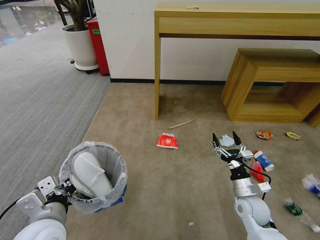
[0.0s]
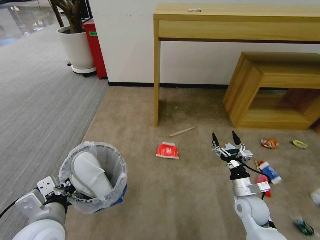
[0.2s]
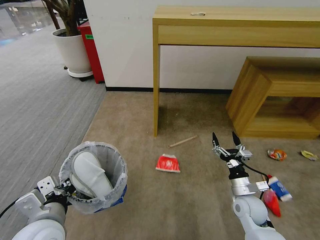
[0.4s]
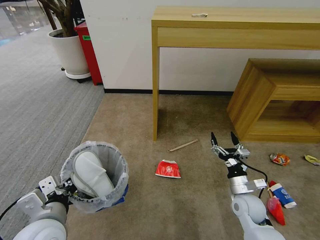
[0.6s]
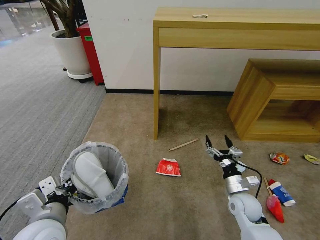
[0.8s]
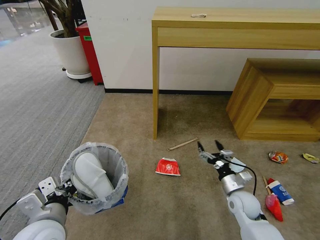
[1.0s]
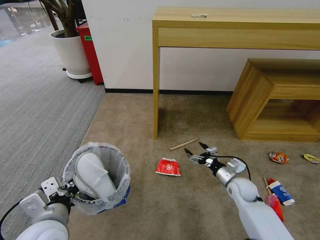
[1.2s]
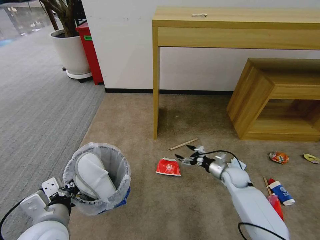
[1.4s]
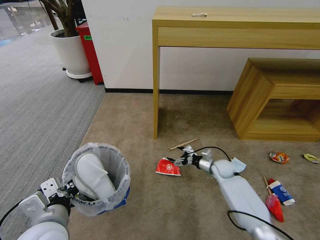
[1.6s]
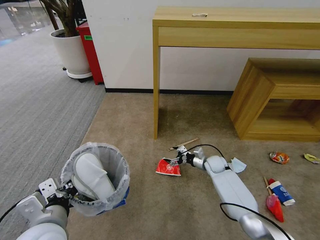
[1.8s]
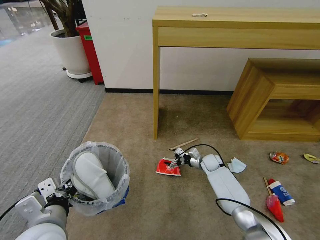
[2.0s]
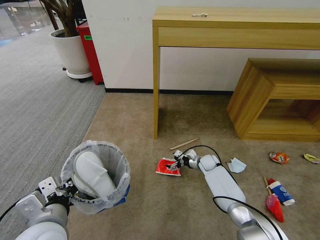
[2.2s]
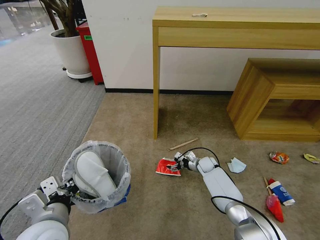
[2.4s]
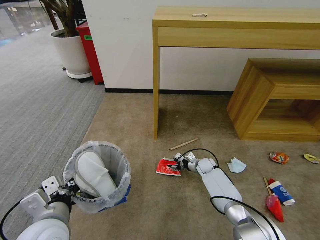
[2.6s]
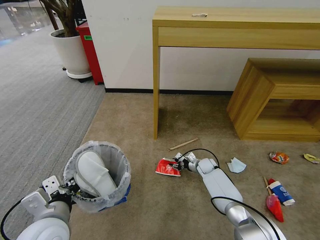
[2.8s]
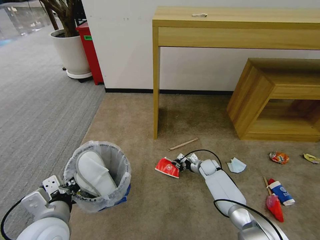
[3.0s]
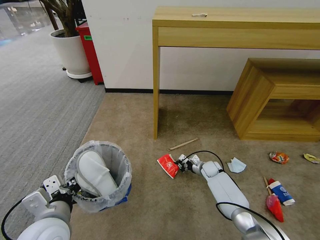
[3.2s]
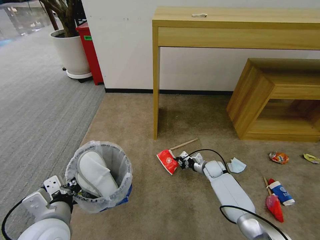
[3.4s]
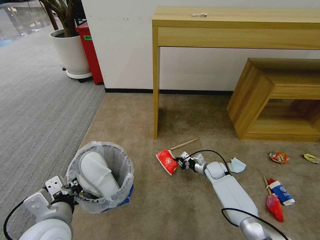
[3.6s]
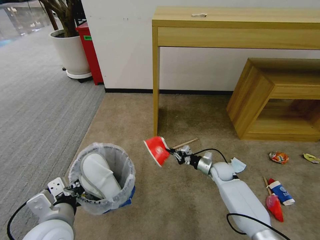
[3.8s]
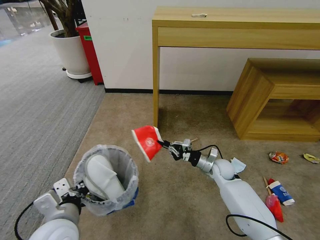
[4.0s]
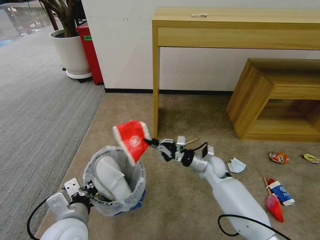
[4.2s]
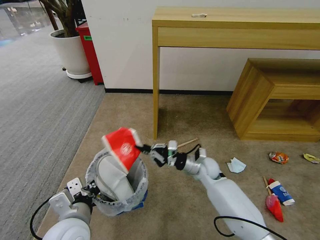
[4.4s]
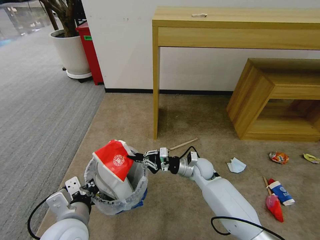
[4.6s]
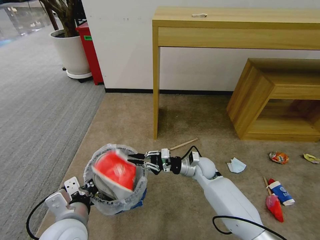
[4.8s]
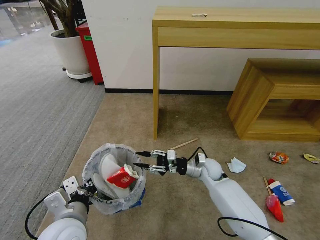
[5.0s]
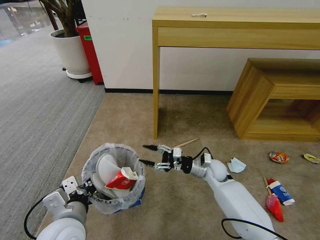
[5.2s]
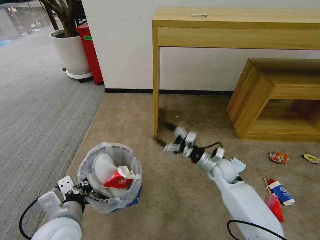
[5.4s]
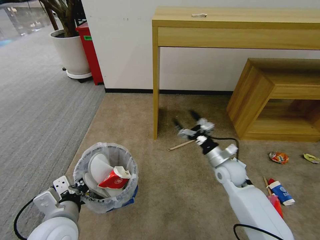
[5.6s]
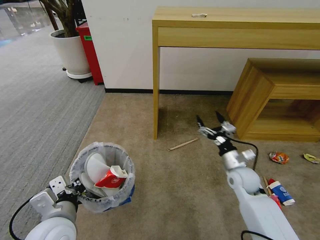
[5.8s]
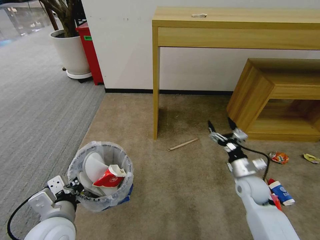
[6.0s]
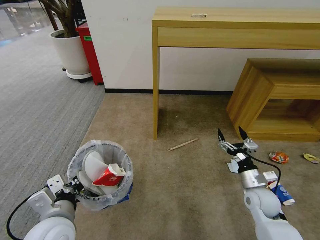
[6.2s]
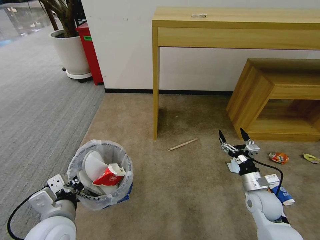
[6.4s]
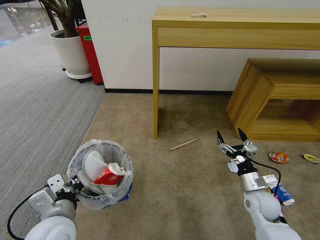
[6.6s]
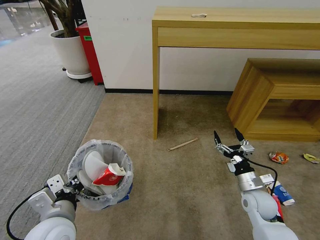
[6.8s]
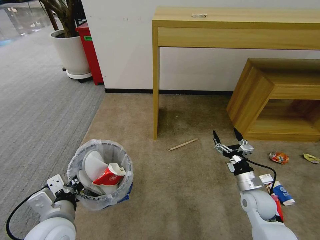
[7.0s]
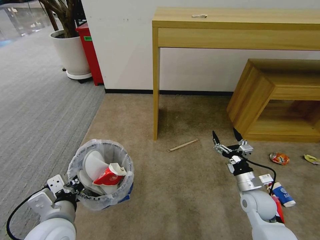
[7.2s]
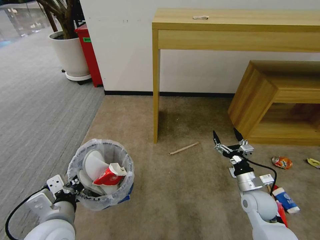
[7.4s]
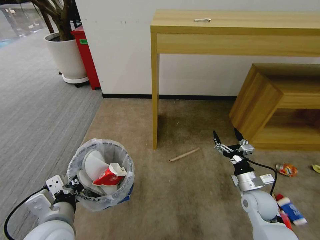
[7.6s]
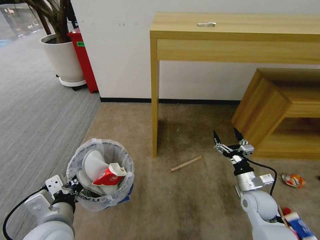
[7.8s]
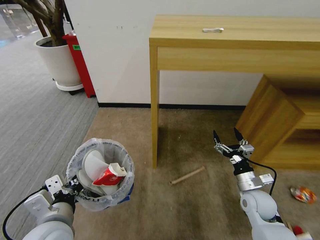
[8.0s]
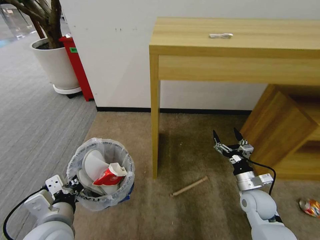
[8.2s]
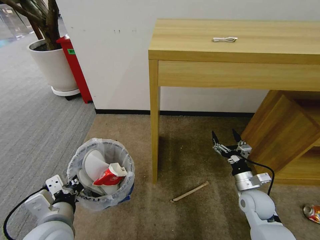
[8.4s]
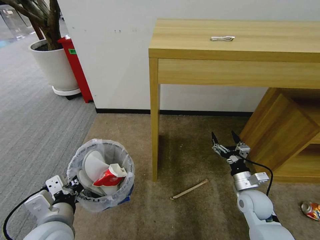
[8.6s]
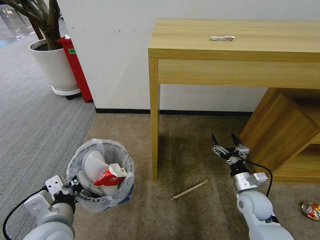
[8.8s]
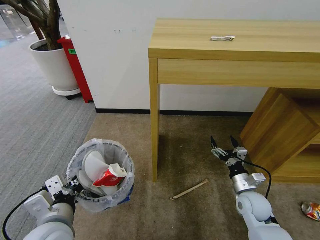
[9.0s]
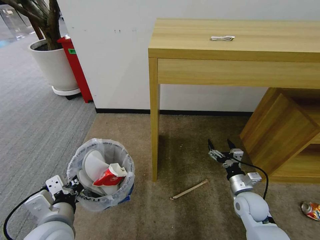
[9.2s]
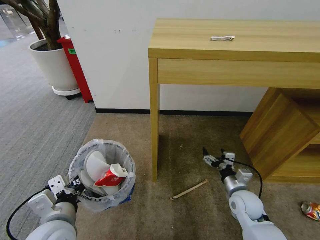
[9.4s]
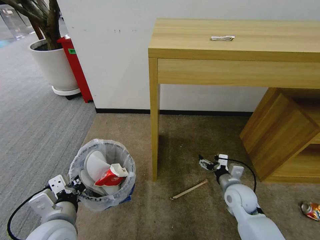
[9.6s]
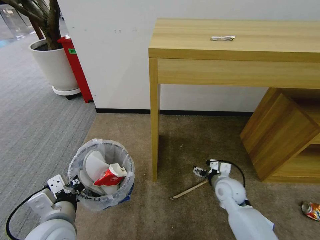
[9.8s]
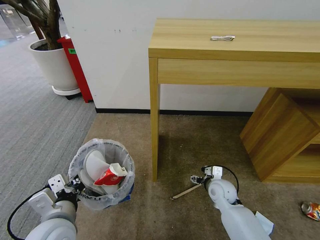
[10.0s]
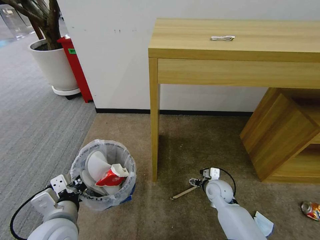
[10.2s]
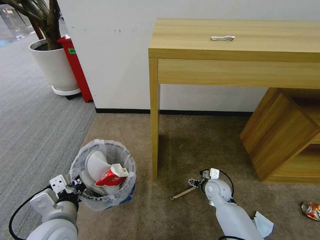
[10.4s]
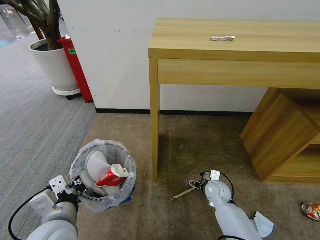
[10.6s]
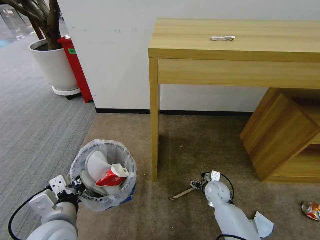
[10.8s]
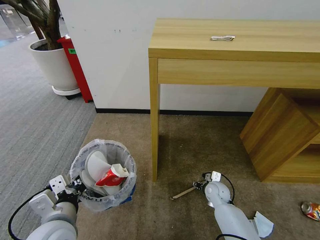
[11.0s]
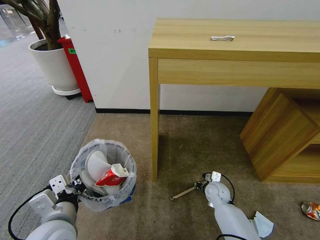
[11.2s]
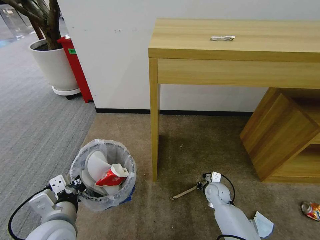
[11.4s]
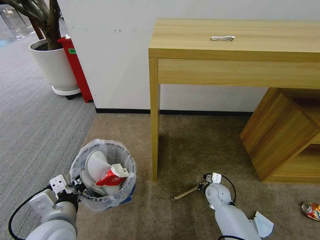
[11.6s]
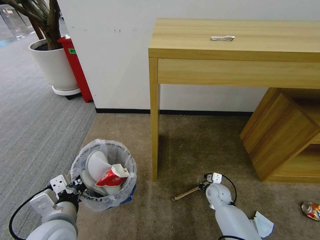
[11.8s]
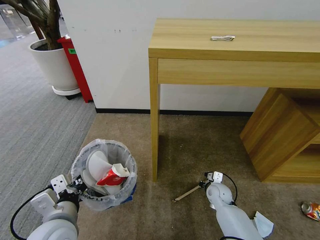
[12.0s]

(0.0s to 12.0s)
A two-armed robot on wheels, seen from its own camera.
Task of the whole recording: Pick up the trash bin and place the garbage on the floor into it.
0.0s - 1.6s: The right gripper is displaced forward by some 20 cm.
1.6s - 3.0s: The right gripper goes some 5 cm downward, and closes its fingers.
3.0s - 4.4s: The right gripper is displaced upward, backward and to the left by some 20 cm.
4.4s - 6.0s: The right gripper moves to the right and backward, about 15 cm, and opens up.
6.0s - 7.6s: The right gripper shifts by about 5 cm.
9.0s - 10.4s: The right gripper travels to the left, forward and downward by roughly 15 cm.
10.4s - 12.0s: The right gripper closes its fingers.

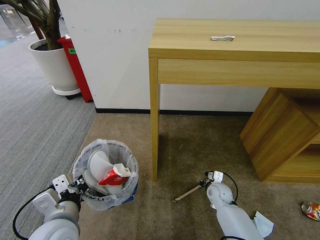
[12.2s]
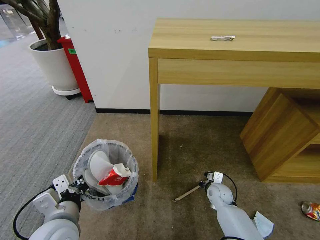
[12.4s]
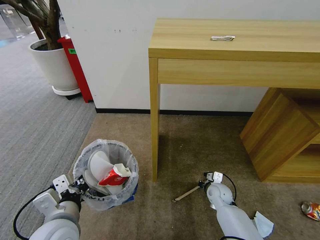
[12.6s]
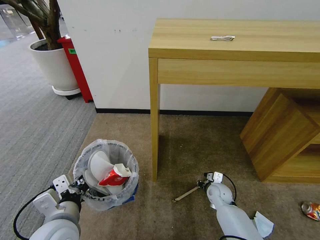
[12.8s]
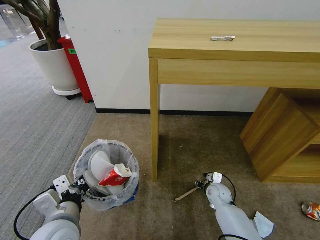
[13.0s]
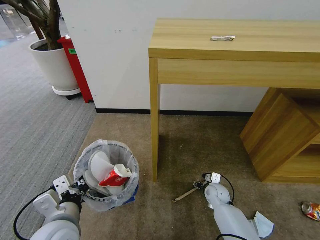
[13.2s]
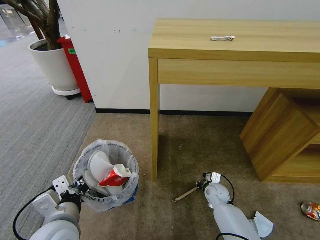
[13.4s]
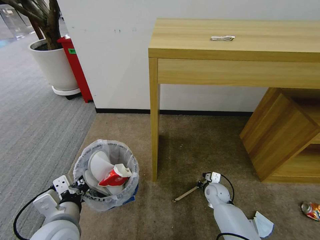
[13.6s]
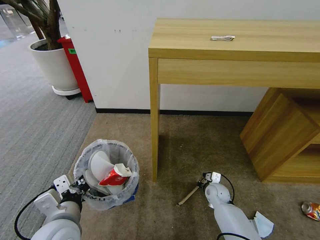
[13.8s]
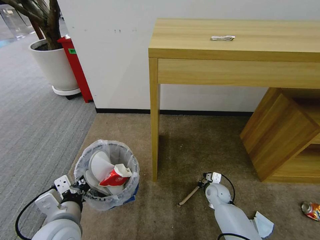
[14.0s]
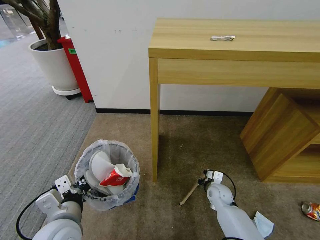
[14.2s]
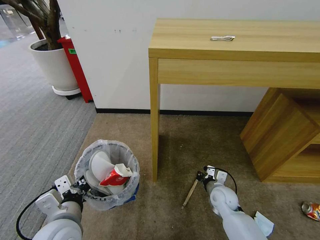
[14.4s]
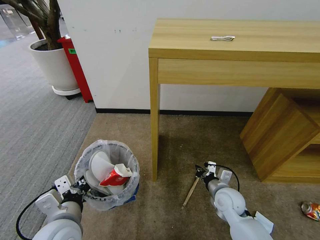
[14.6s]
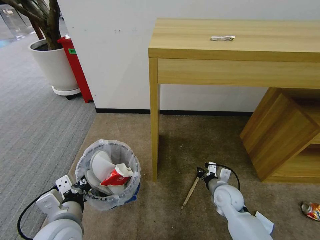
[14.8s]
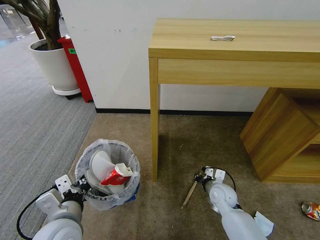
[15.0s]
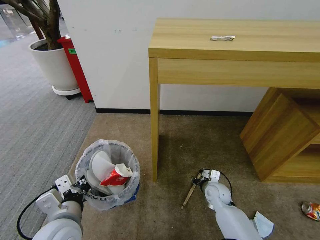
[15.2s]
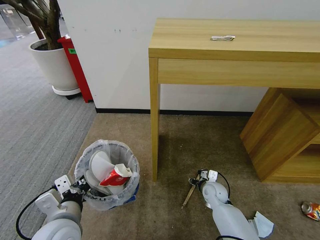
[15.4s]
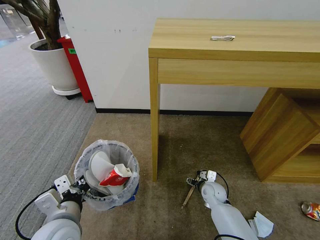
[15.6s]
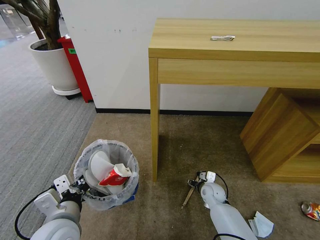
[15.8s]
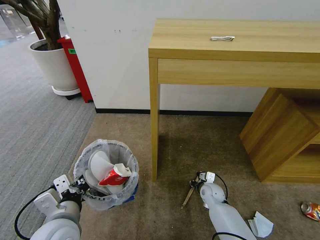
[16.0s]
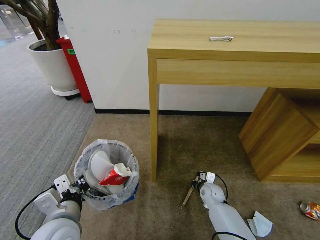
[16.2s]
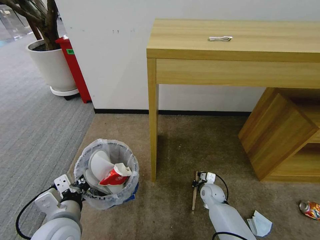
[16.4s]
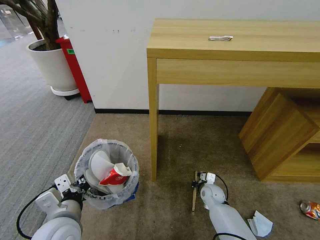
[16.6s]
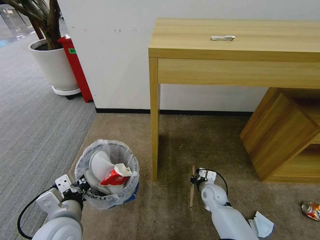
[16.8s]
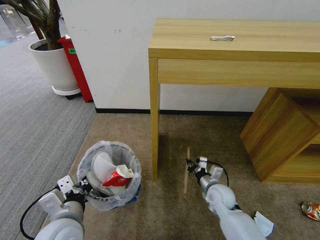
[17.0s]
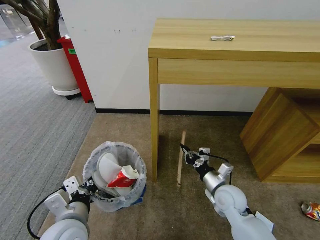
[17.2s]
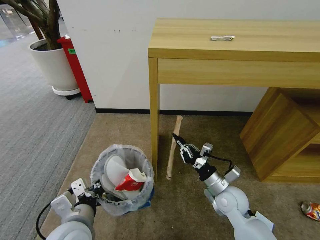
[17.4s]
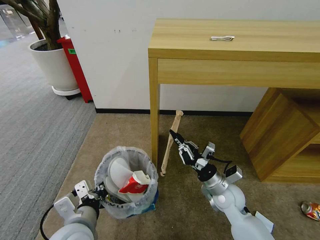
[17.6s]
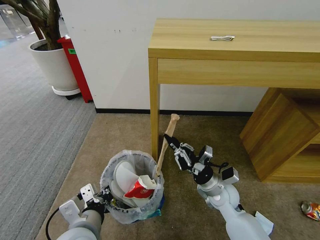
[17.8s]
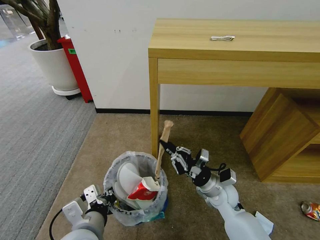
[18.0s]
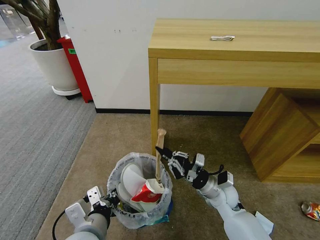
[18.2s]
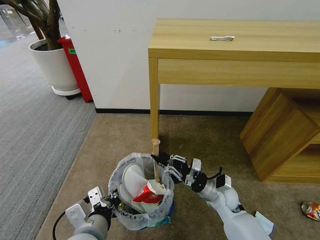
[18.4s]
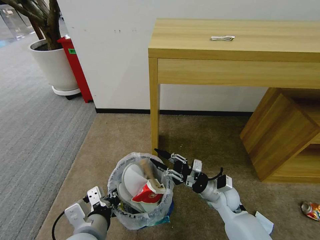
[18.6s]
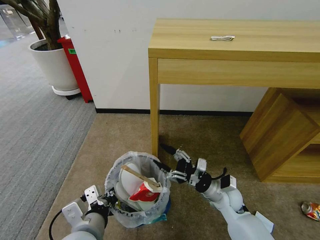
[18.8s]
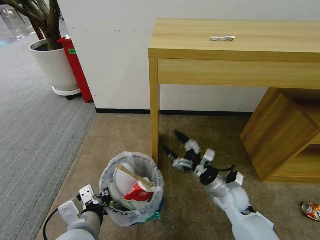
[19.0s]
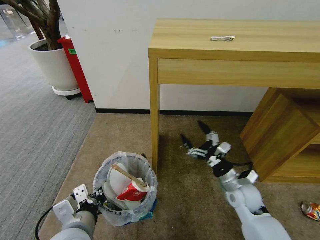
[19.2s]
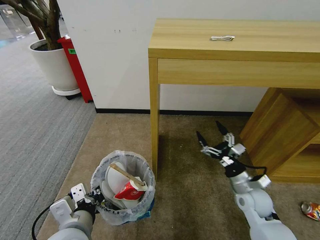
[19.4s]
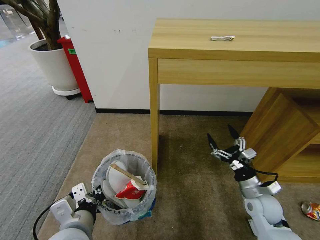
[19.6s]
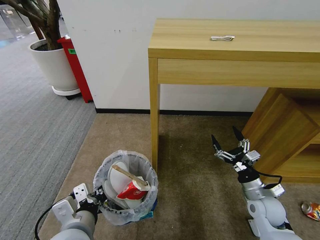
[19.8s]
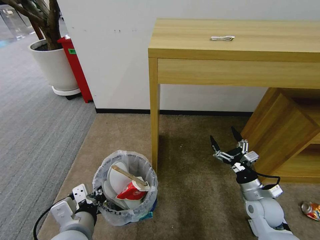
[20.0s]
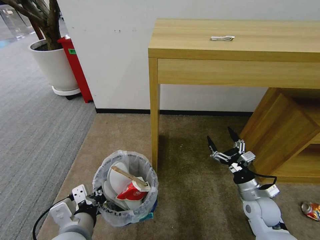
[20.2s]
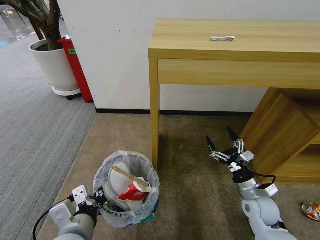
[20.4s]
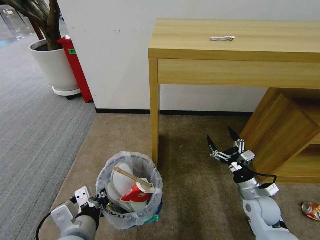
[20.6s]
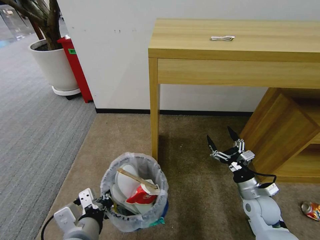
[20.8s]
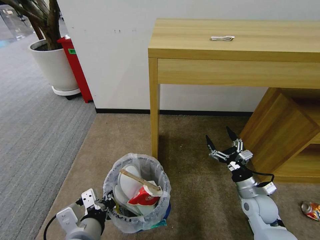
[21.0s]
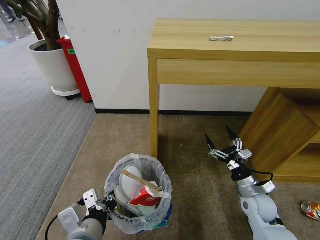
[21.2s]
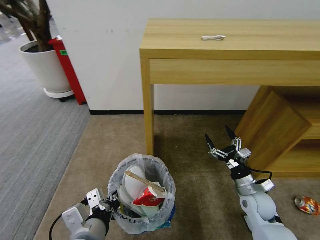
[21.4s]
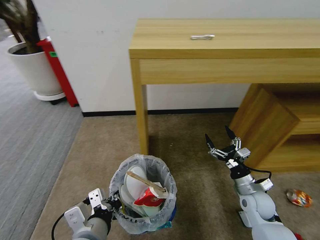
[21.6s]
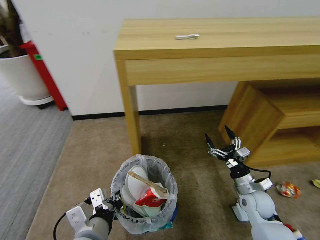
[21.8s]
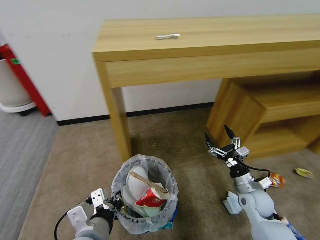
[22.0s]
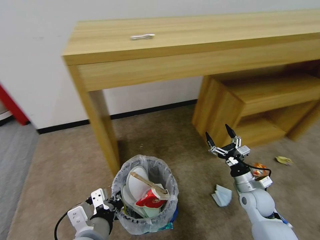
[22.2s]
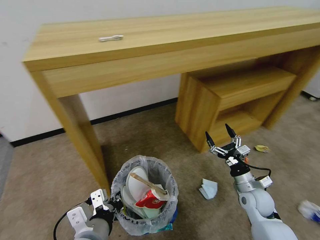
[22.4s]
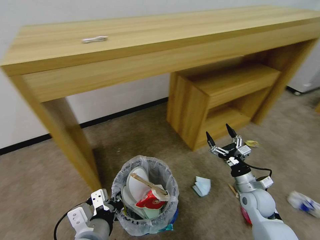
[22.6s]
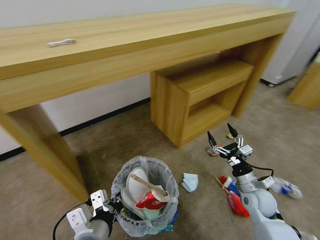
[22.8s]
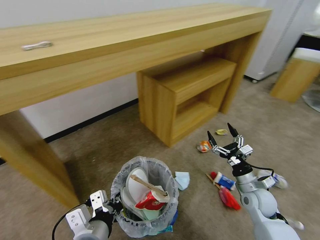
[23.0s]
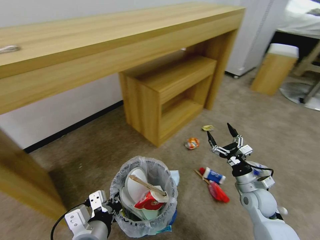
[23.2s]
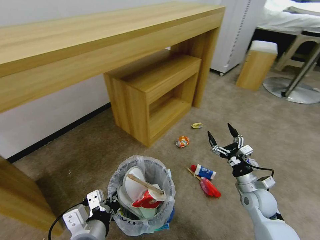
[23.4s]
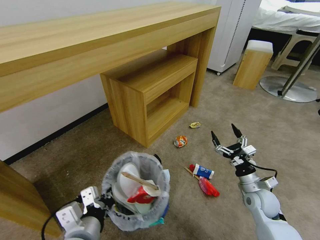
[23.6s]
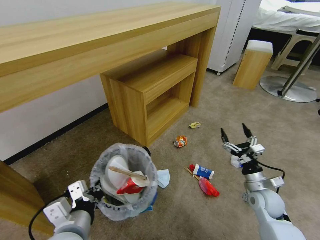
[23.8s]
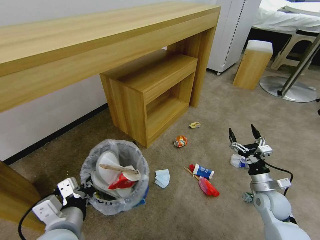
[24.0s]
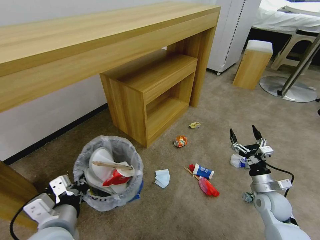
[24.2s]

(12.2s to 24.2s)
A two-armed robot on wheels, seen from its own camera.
Task of the whole recording: Pick up the trash bin and place the garbage on the floor into it.
12.2s - 13.8s: The right gripper opens, then closes again.
15.2s - 16.6s: The right gripper shifts about 5 cm downward, and closes its fingers.
16.6s - 18.2s: The right gripper shifts some 15 cm upward, while the left gripper moves to the right, approximately 5 cm.
18.2s - 19.8s: The right gripper moves to the right, about 15 cm, and opens up.
19.8s - 21.2s: The grippers make only small movements.
22.6s - 24.2s: The left gripper heads to the left, covering roughly 5 cm.
